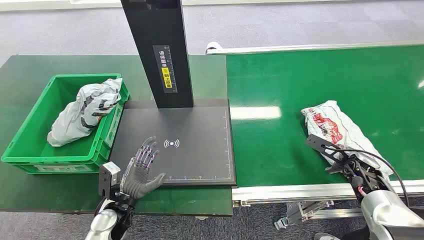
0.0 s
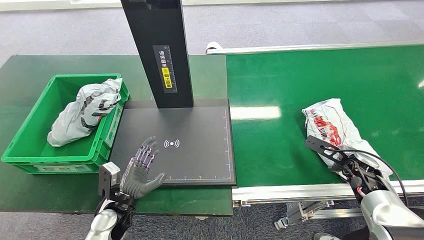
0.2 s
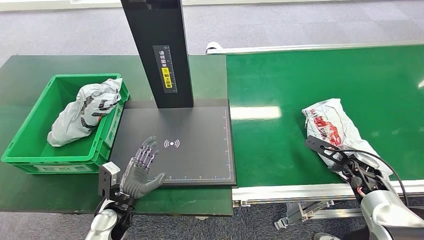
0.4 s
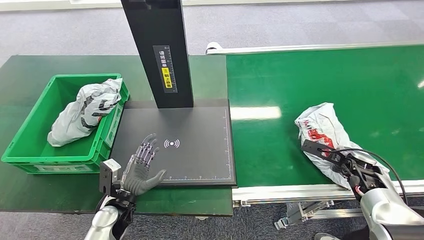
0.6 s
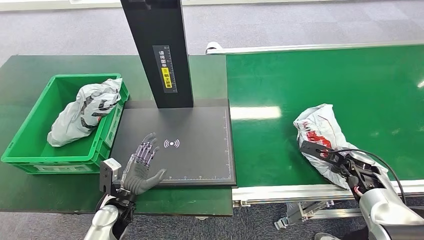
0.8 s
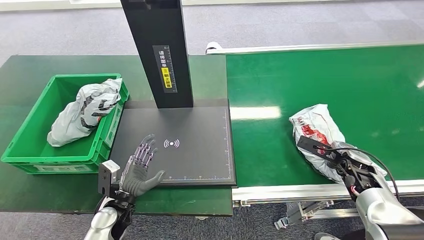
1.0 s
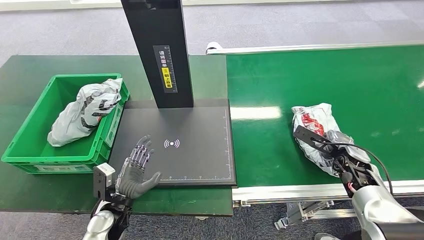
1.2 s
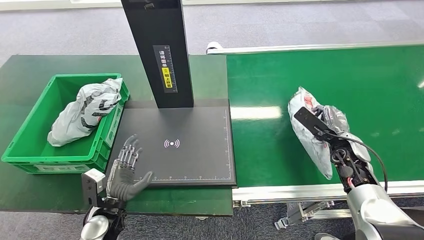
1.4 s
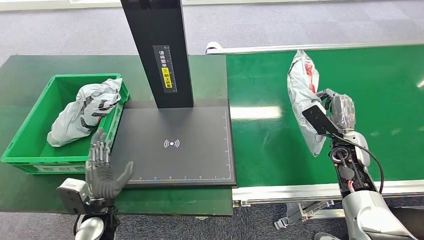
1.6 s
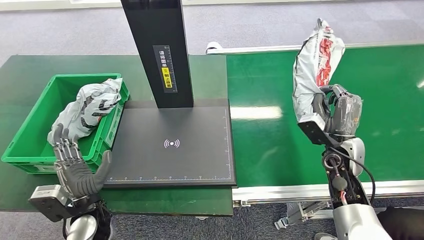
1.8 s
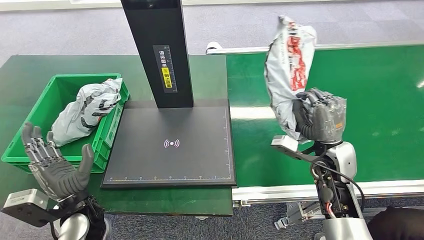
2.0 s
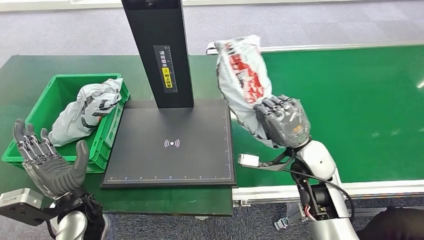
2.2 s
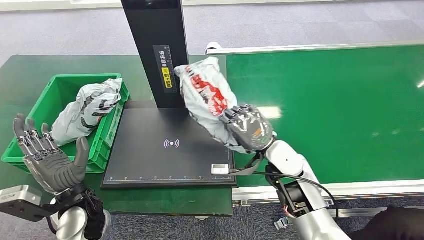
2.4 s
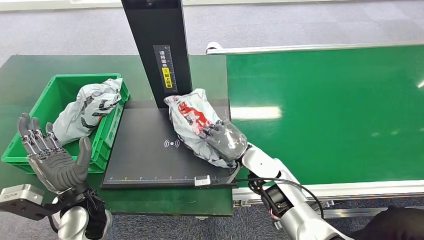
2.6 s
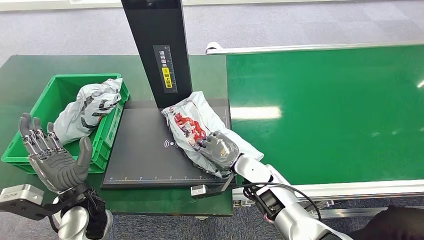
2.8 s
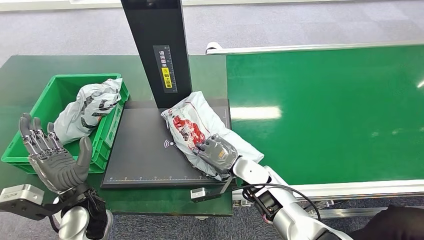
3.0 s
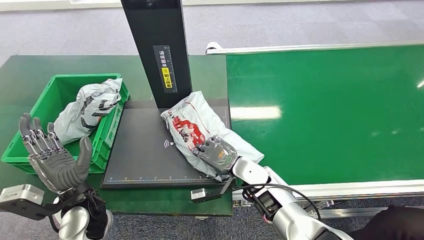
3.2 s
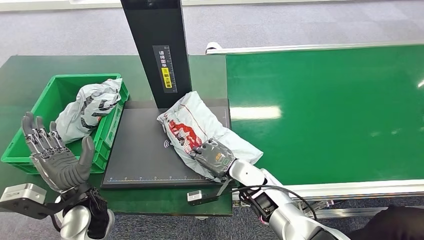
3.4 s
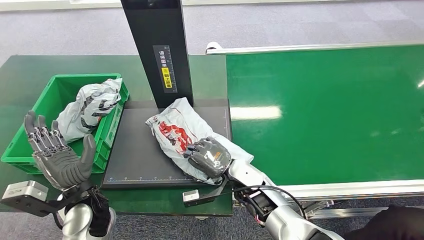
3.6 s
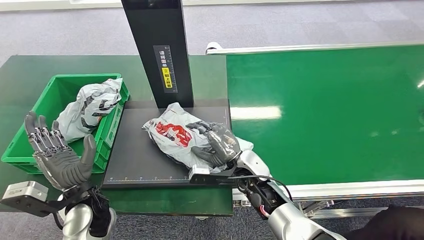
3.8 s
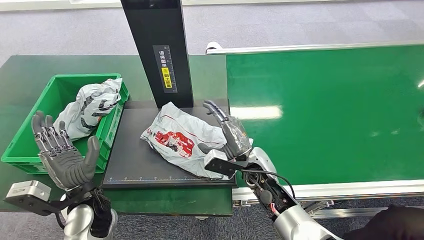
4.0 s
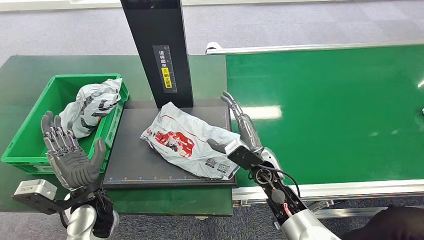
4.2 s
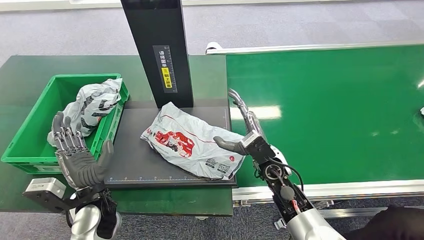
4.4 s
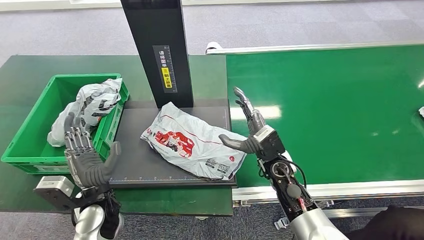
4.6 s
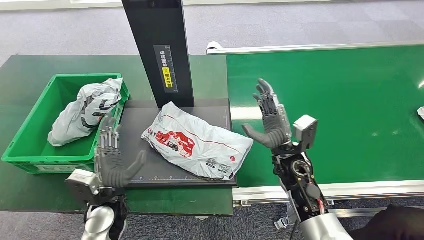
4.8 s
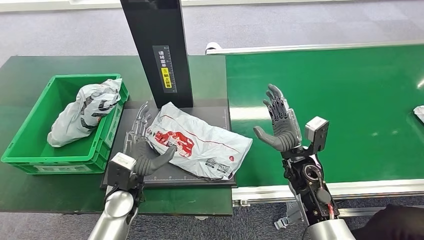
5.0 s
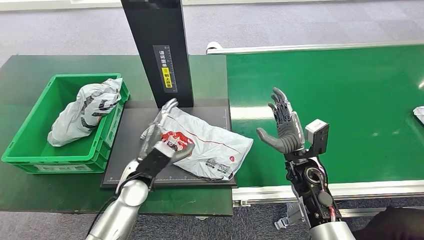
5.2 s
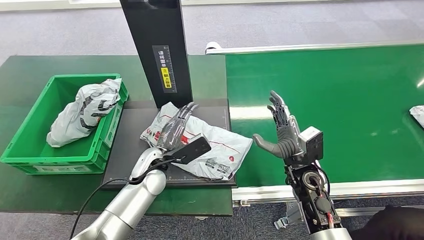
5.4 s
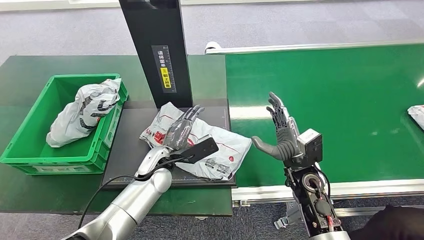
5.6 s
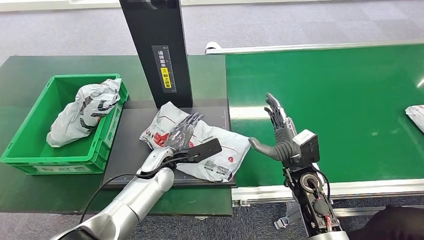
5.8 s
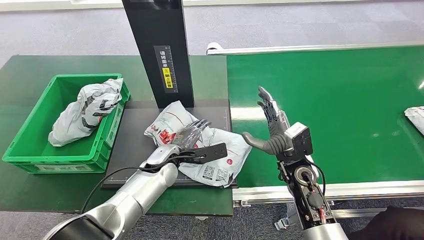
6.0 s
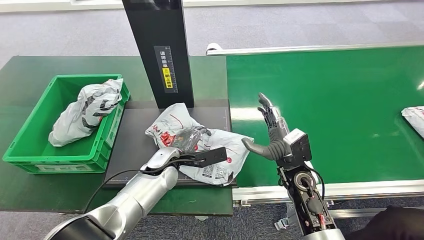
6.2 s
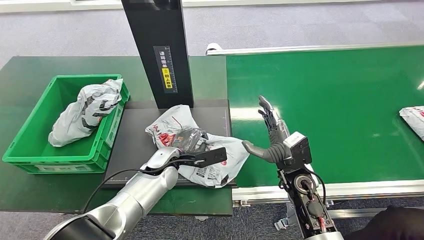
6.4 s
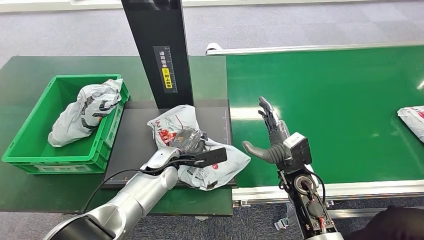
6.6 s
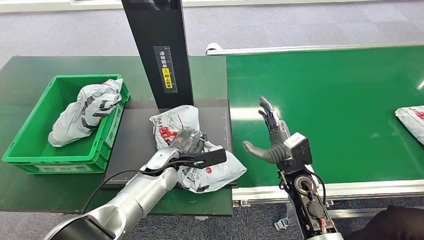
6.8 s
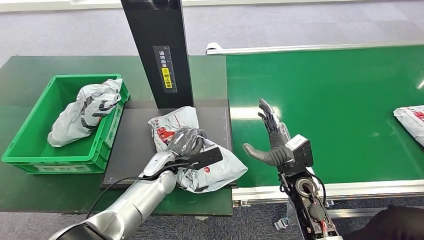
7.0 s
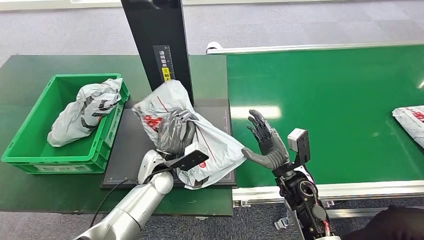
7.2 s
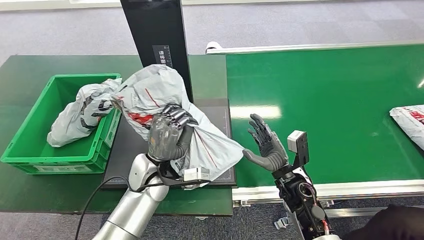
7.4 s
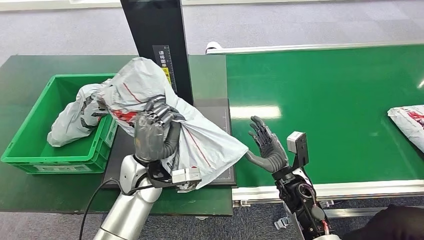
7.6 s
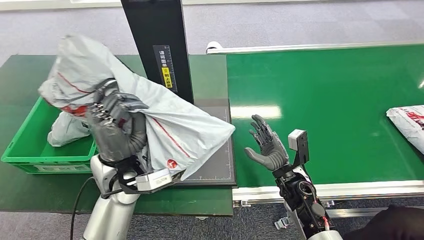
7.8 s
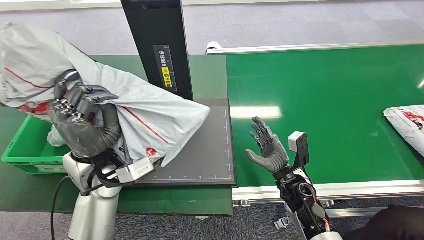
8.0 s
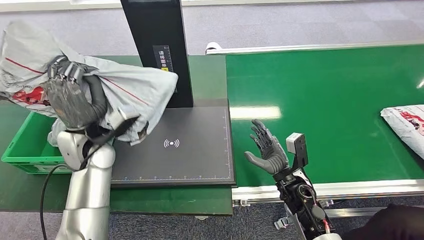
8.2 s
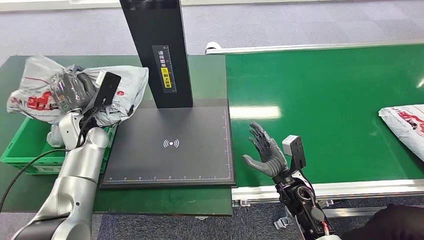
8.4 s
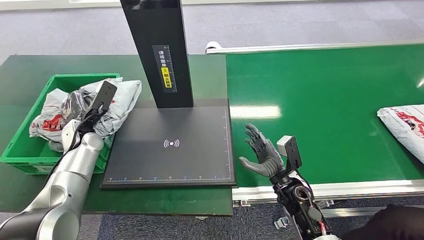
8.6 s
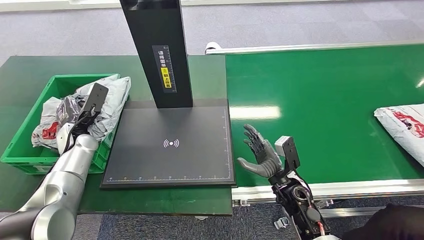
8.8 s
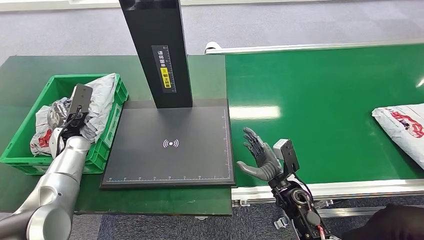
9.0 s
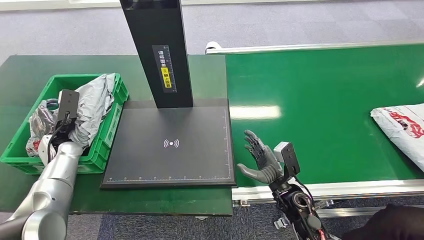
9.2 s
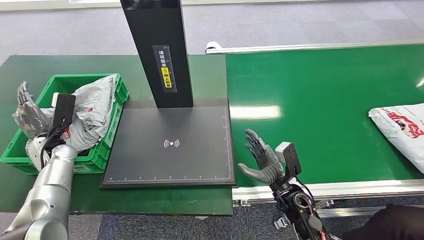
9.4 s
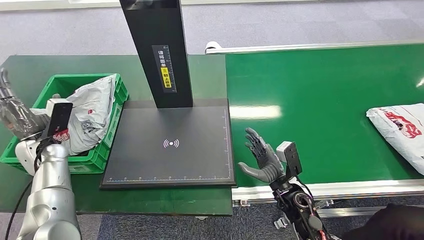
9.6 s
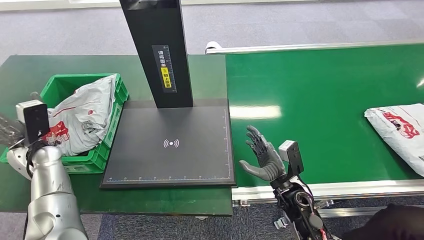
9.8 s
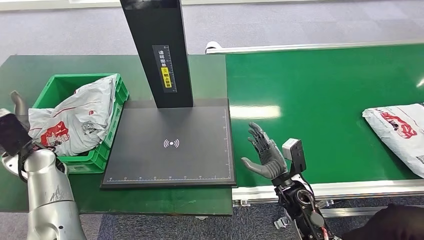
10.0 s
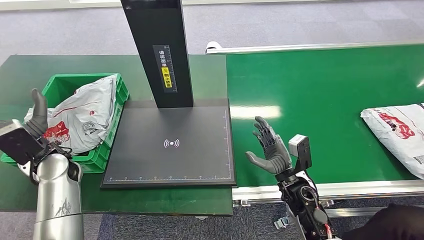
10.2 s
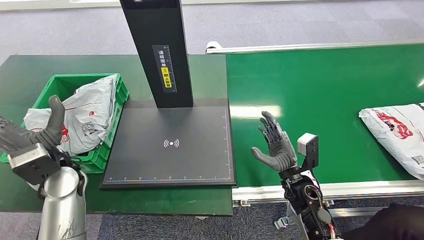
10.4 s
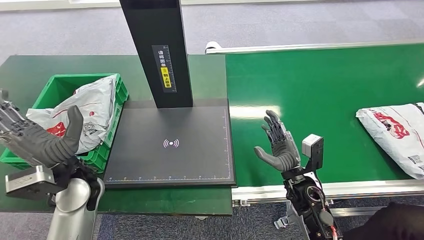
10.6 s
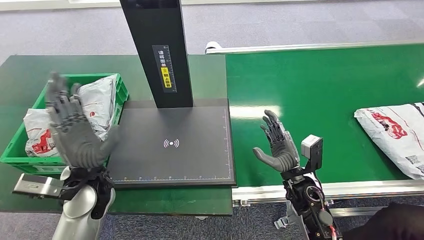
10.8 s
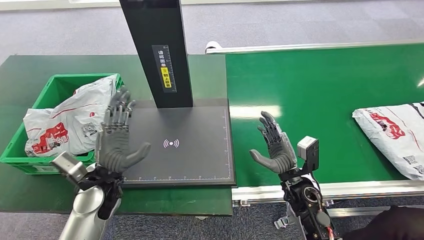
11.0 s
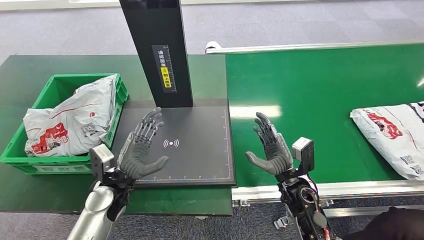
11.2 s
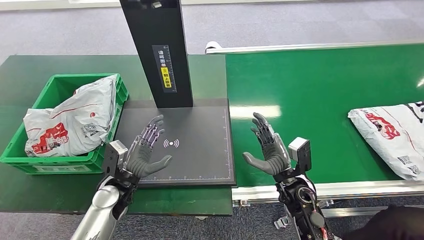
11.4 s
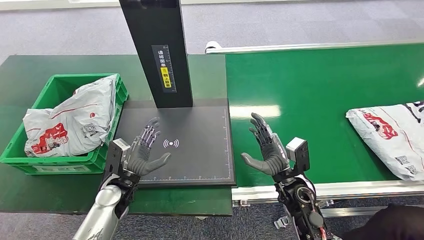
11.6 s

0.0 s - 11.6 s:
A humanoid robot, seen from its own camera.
Step, 0.0 s - 2.0 s: Pick up the package from the conveyor belt.
Step, 2.2 s - 4.8 s: Place the package onto the inbound machine.
Step, 5.2 s - 7.6 s: Pick up the package from the inbound machine.
Step, 8.0 s - 11.6 s: Place the package into the parcel locker.
4.4 s - 5.8 s: The right hand is displaced to the right by about 5 cm. The left hand heads forward and to the right, covering about 15 cm.
8.8 s - 10.2 s: The left hand shifts roughly 10 cm backward.
10.2 s - 11.6 s: The left hand travels to the right and downward by some 15 cm.

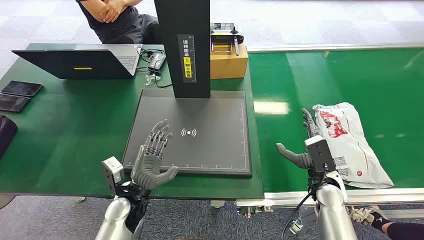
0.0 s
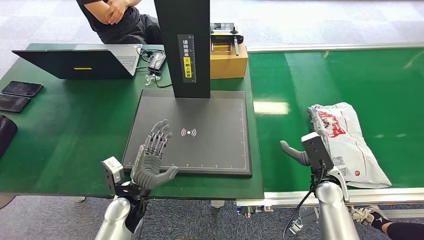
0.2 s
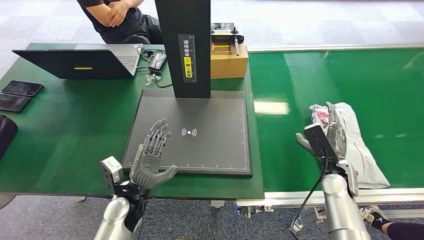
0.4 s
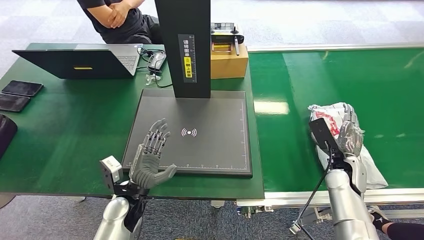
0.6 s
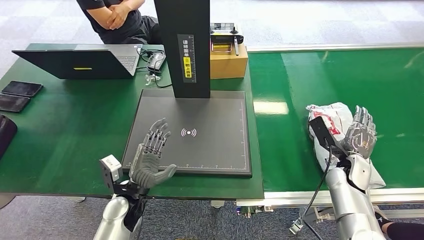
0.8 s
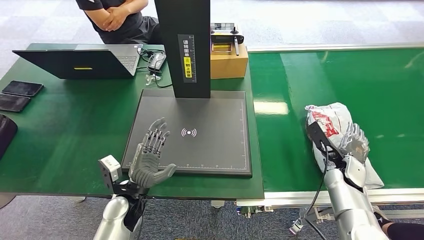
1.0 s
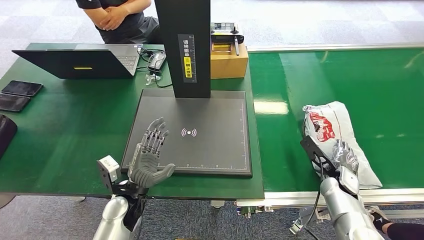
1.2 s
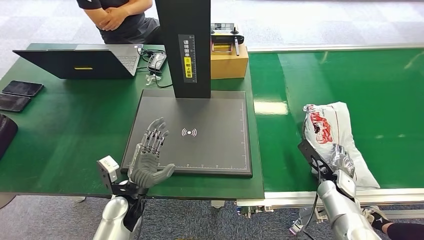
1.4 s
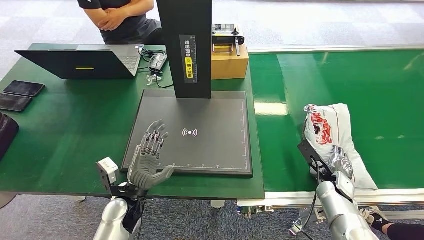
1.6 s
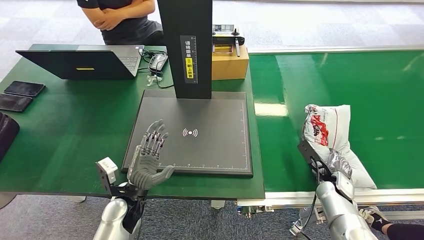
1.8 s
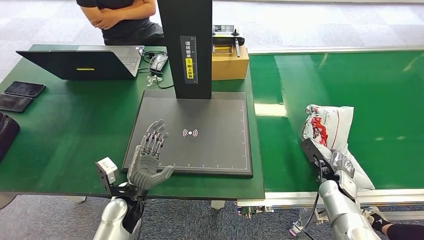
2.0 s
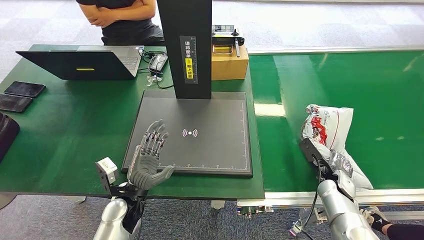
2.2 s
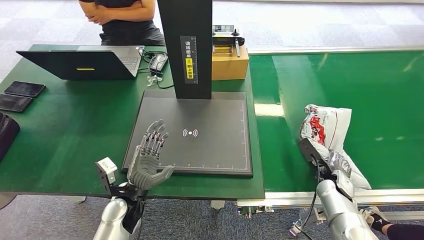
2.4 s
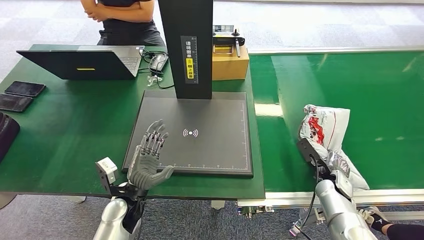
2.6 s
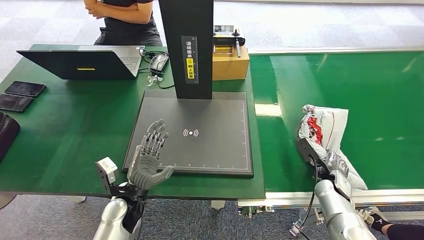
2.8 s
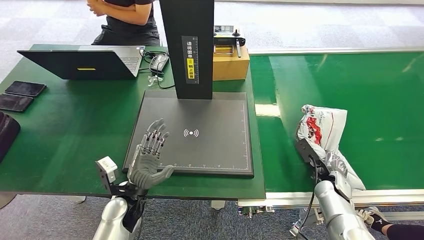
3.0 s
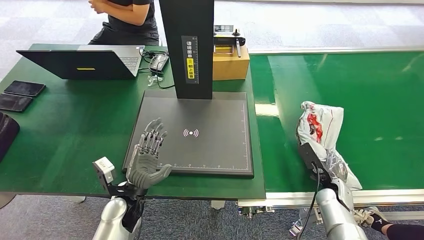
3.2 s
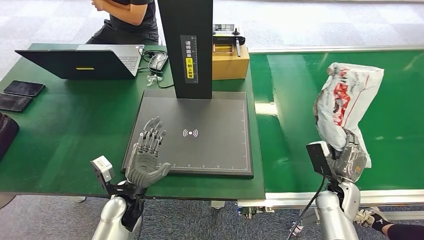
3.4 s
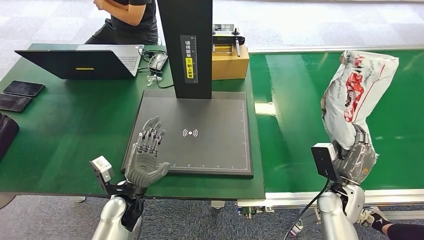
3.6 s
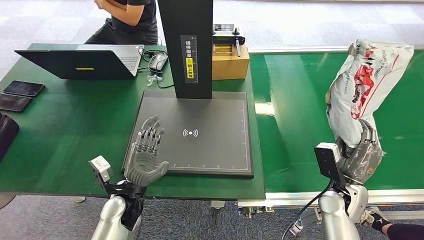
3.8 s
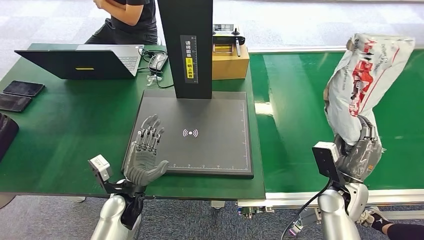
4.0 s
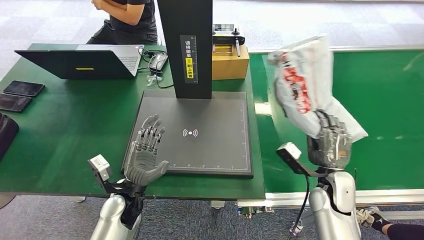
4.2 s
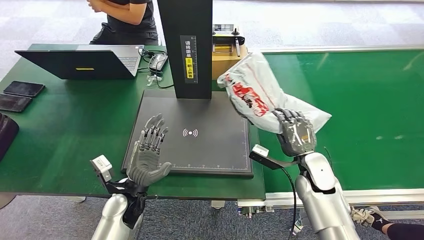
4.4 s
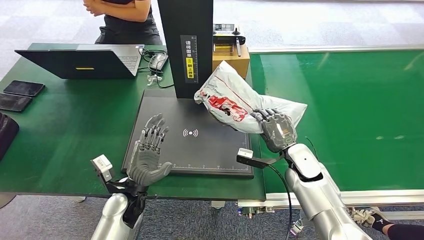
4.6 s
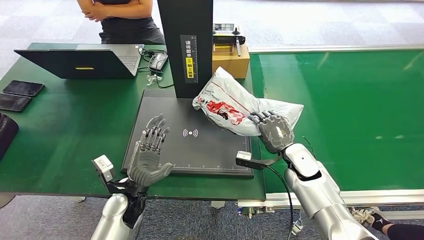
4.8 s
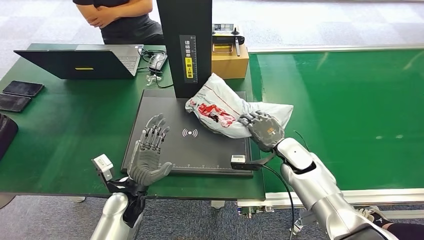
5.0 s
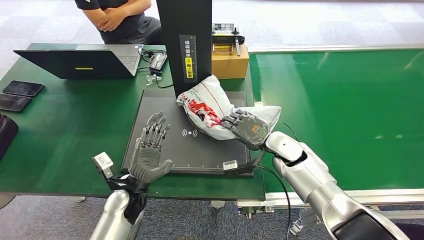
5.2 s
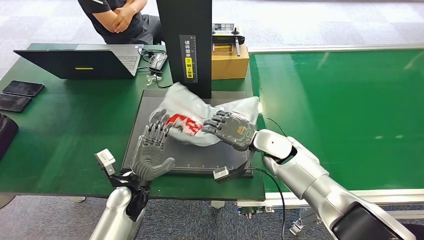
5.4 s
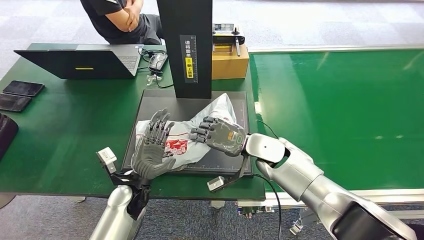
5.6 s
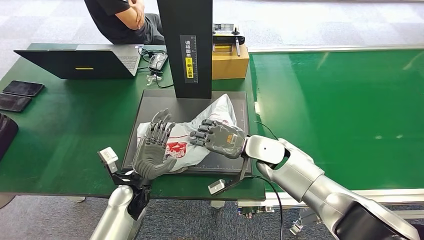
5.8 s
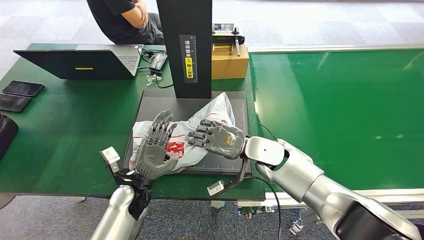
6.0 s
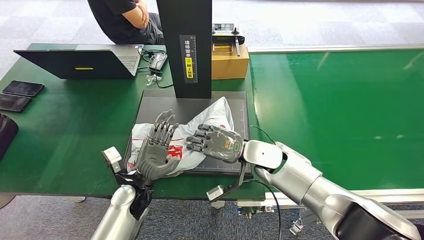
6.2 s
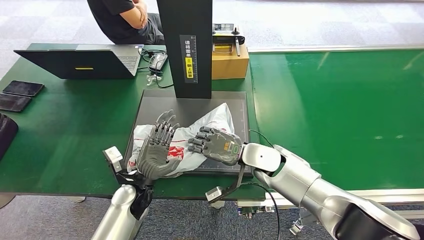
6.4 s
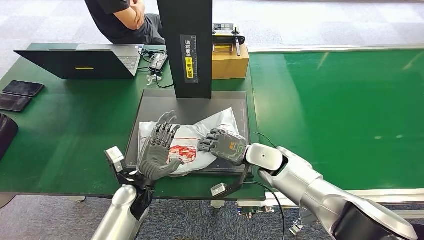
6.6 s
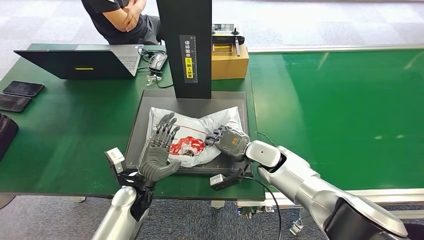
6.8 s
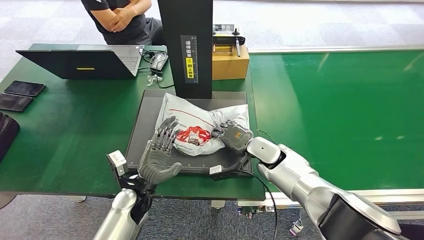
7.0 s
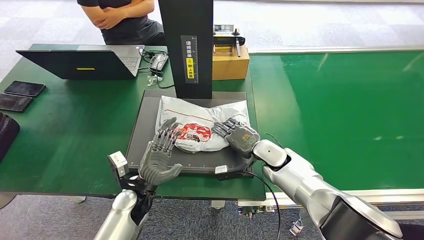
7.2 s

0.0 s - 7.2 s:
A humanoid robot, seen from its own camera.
Step, 0.0 s - 4.2 s: Pick up the package from the conveyor belt.
1.4 s - 2.8 s: There are only small adjustments of the hands.
